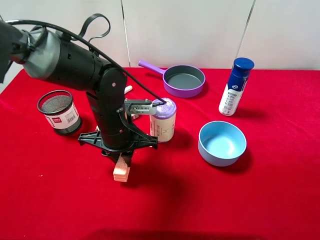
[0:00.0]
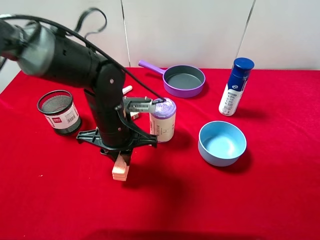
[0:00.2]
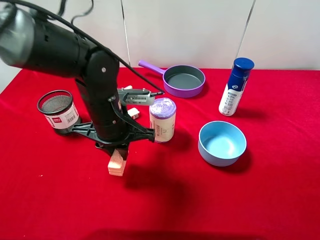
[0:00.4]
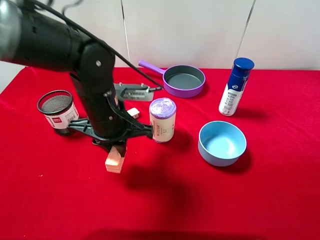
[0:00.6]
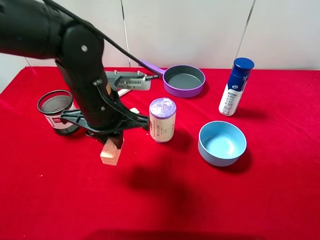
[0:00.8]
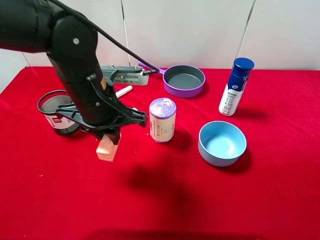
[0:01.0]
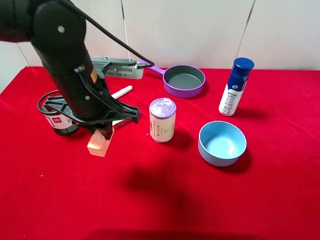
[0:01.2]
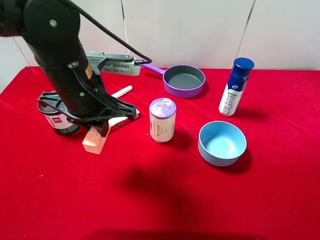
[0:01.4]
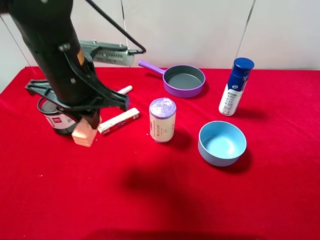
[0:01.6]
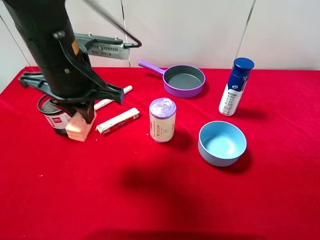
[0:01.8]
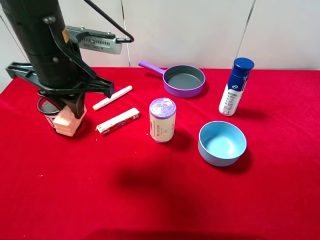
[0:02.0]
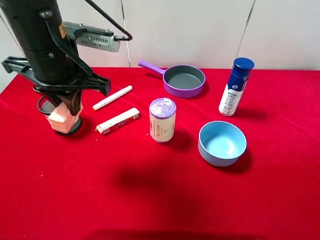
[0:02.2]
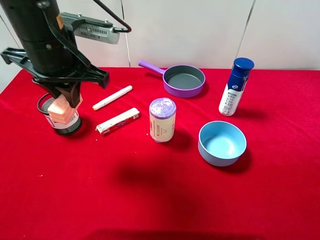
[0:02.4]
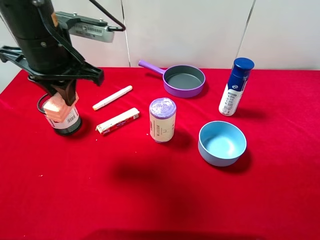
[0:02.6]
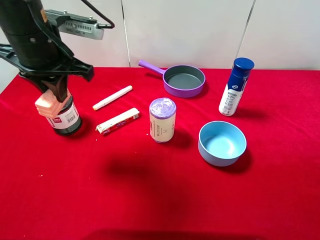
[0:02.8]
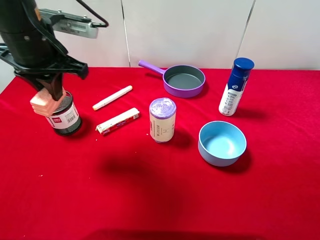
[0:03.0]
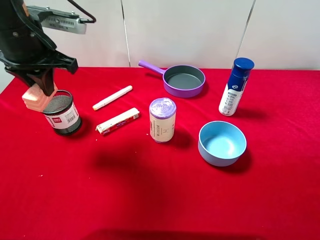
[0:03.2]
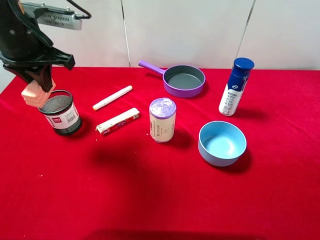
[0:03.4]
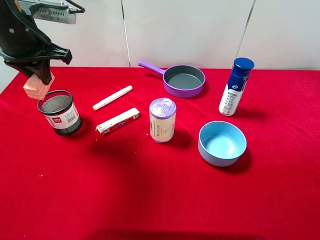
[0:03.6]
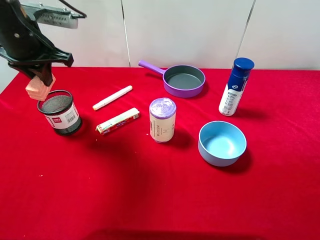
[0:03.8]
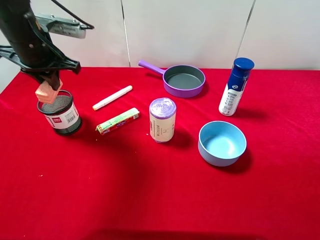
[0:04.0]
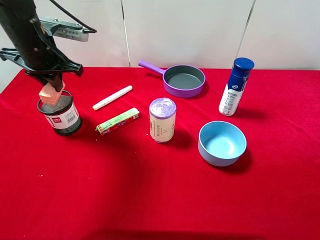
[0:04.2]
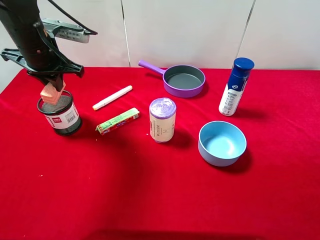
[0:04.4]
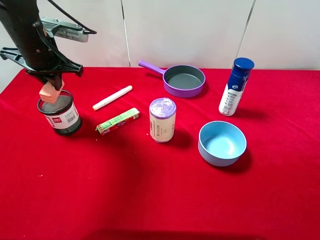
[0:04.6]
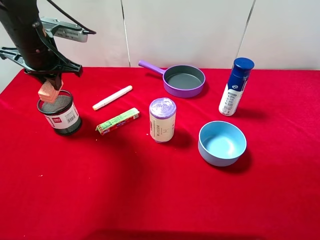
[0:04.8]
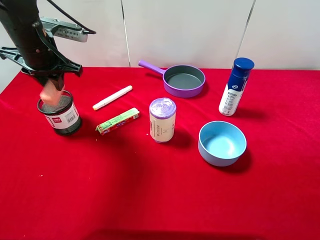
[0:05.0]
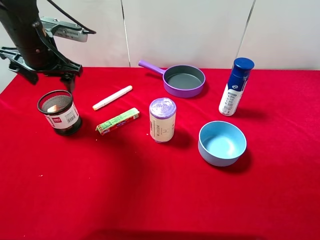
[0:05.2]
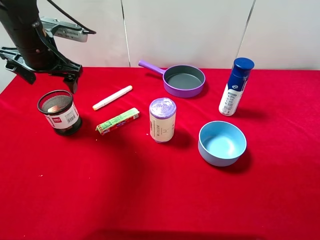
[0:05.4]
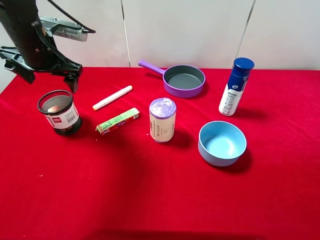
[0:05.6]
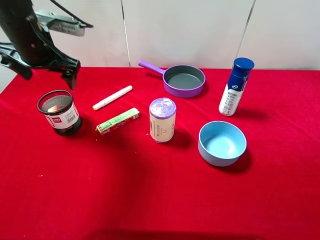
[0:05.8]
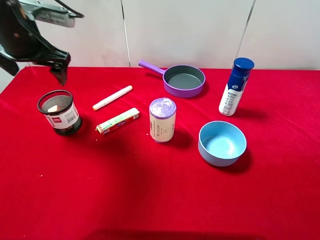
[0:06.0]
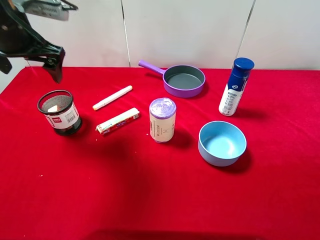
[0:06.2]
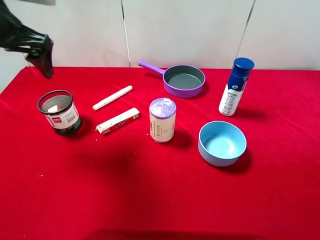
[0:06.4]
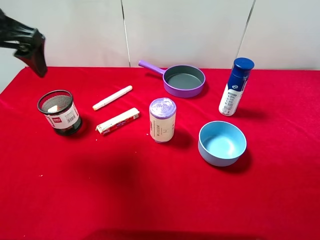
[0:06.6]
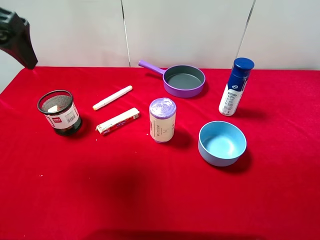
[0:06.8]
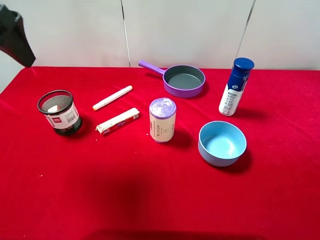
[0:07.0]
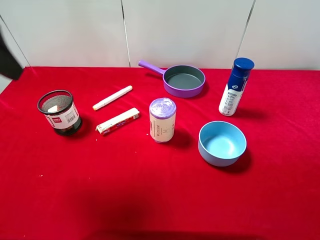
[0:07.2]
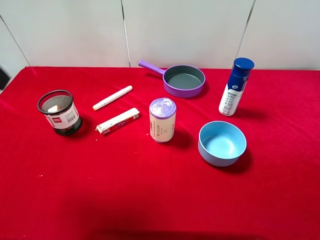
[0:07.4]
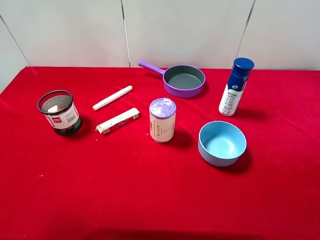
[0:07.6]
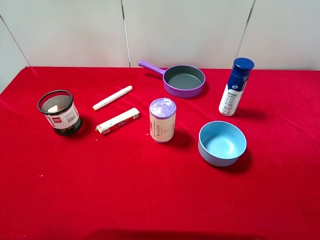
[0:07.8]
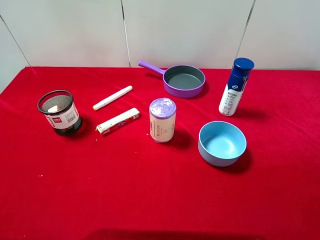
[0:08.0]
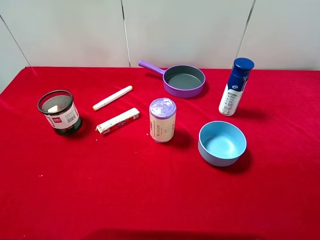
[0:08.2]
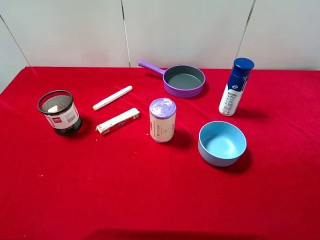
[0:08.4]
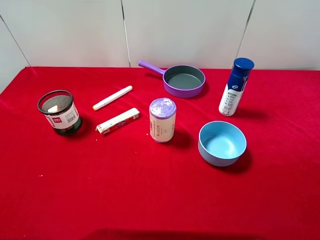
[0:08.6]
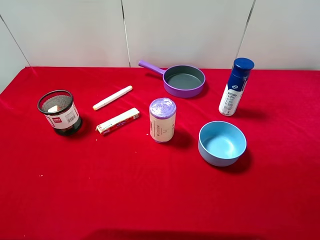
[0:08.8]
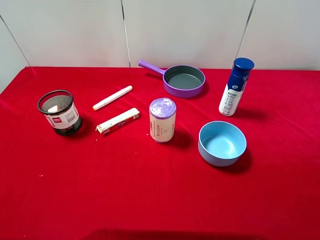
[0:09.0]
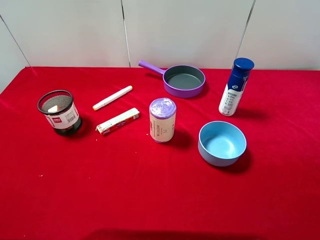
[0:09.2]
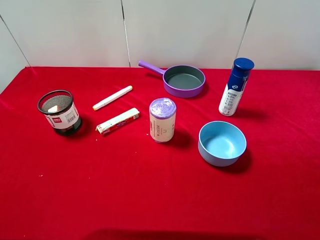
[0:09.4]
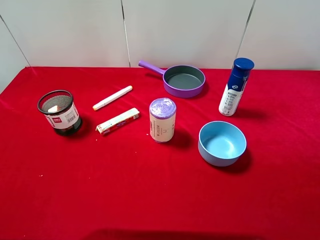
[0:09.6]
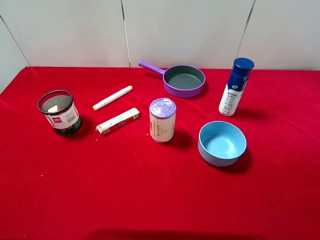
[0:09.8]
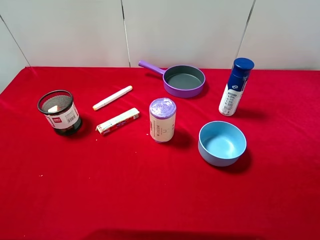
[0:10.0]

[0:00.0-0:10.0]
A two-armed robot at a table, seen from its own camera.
Task of the whole recording: pick up an item with a gripper and place it in a random container on the desktop.
0:00.0 to 0:01.4: The left gripper moves upward, roughly 10 cm.
0:01.4 to 0:02.8: The left gripper travels to the left and upward by roughly 10 cm.
0:02.8 to 0:04.2: The left gripper shifts about 10 cm forward and to the left.
0:04.2 to 0:05.8: The left gripper opens its fingers.
0:05.8 to 0:07.2: The left gripper shifts approximately 20 cm backward and upward.
0:07.2 to 0:08.6: The left gripper shifts about 20 cm backward and downward.

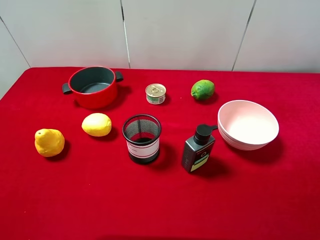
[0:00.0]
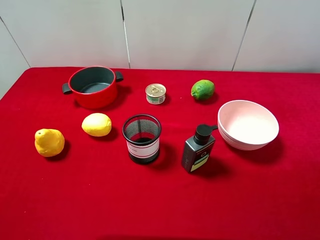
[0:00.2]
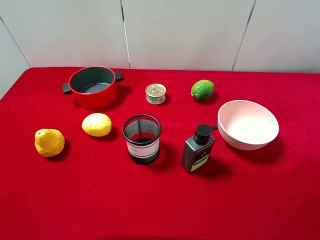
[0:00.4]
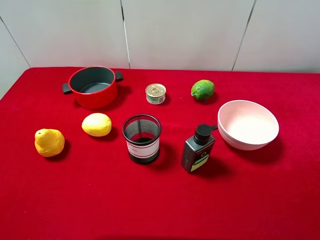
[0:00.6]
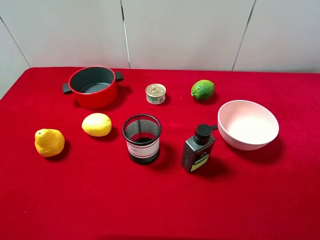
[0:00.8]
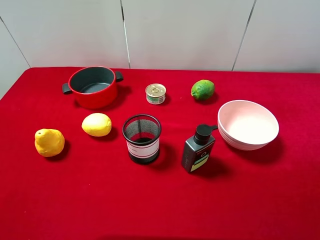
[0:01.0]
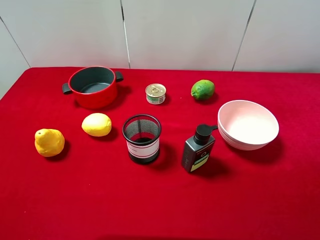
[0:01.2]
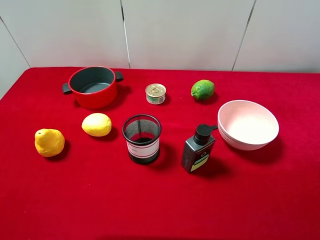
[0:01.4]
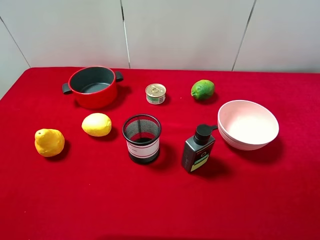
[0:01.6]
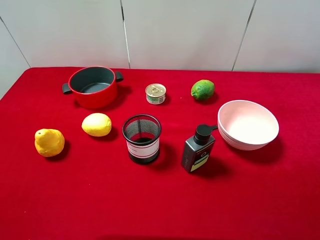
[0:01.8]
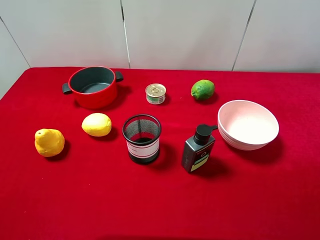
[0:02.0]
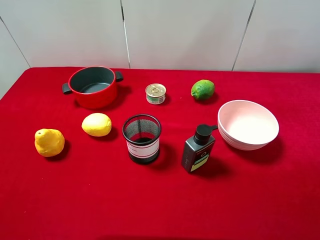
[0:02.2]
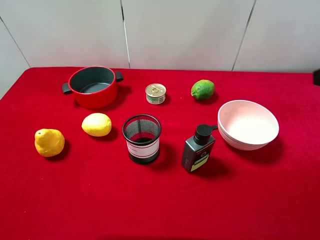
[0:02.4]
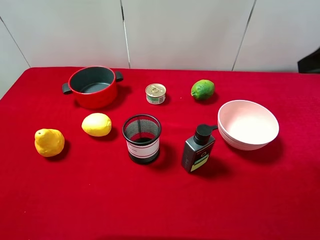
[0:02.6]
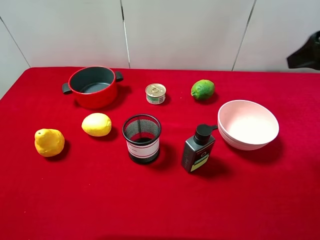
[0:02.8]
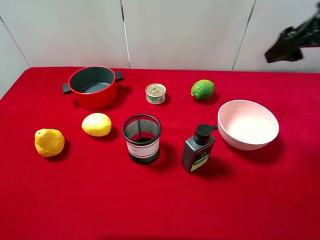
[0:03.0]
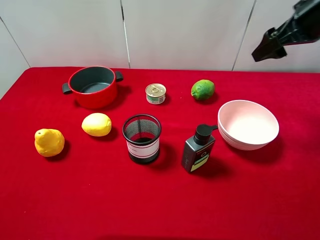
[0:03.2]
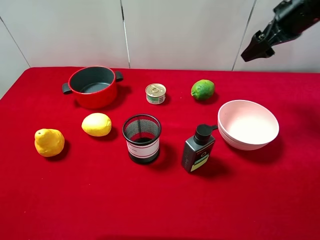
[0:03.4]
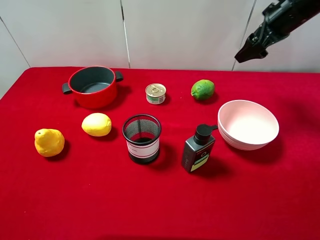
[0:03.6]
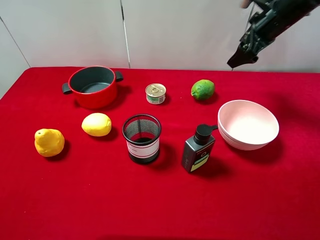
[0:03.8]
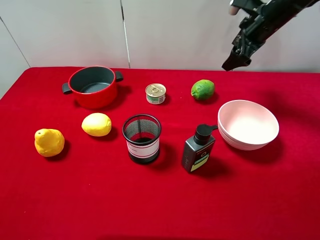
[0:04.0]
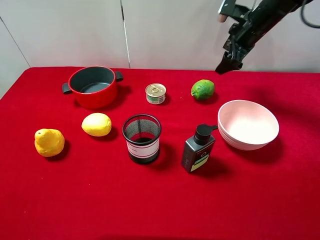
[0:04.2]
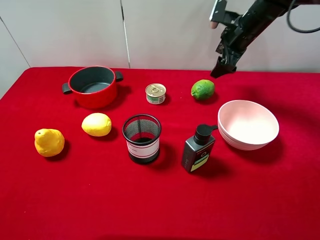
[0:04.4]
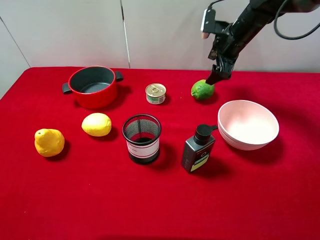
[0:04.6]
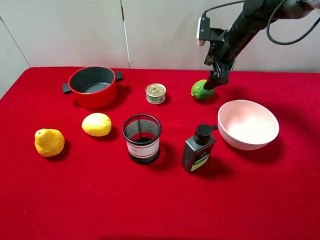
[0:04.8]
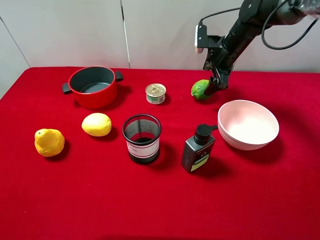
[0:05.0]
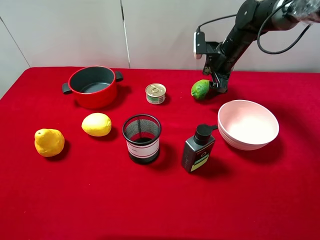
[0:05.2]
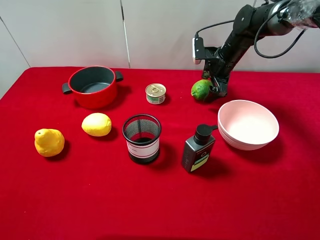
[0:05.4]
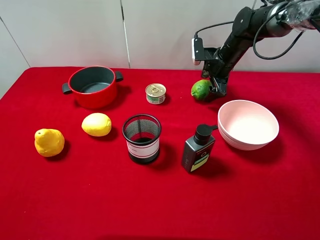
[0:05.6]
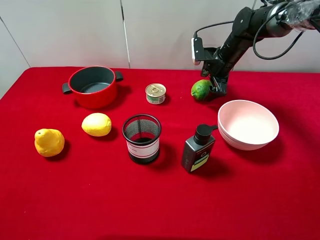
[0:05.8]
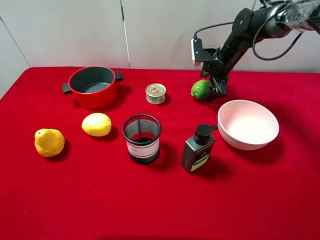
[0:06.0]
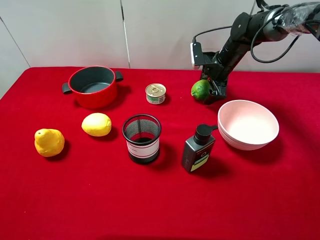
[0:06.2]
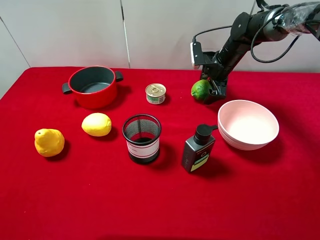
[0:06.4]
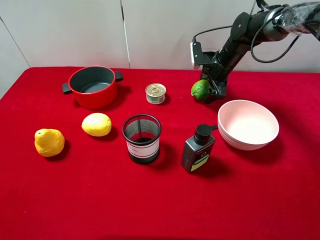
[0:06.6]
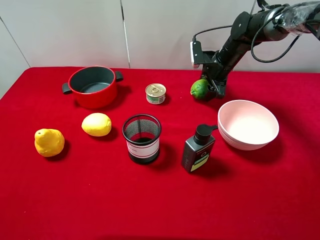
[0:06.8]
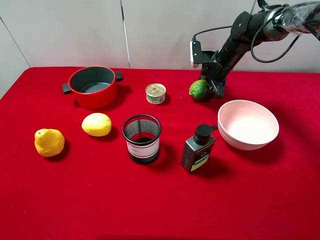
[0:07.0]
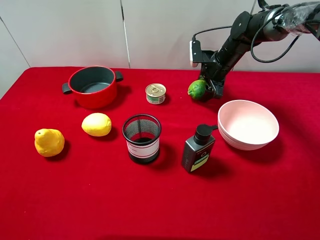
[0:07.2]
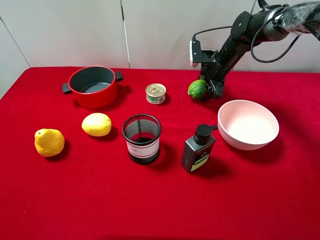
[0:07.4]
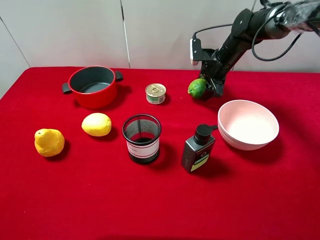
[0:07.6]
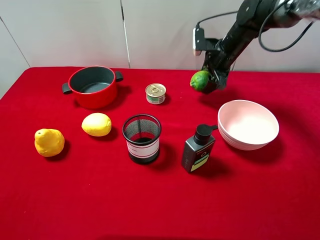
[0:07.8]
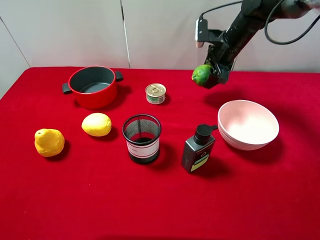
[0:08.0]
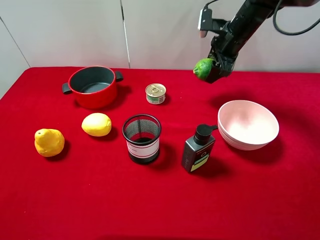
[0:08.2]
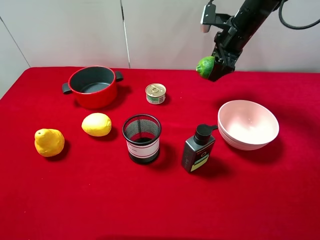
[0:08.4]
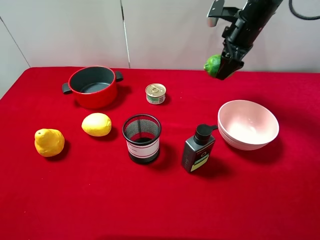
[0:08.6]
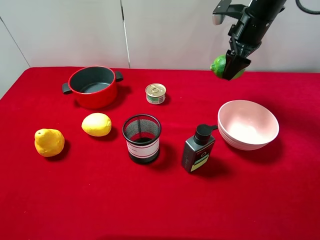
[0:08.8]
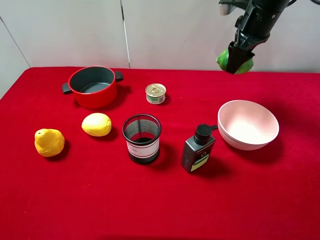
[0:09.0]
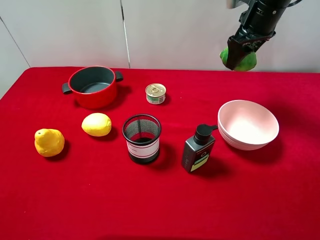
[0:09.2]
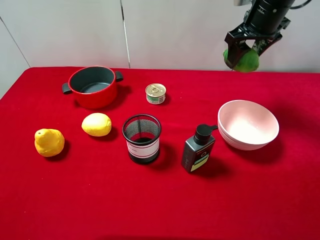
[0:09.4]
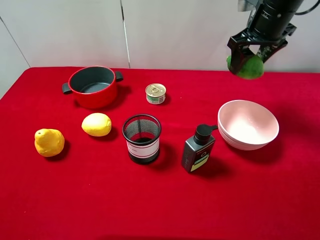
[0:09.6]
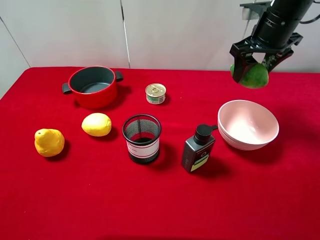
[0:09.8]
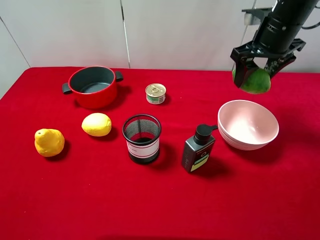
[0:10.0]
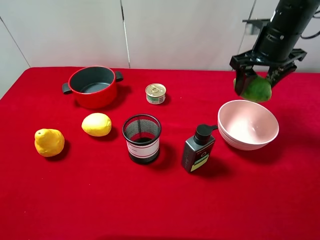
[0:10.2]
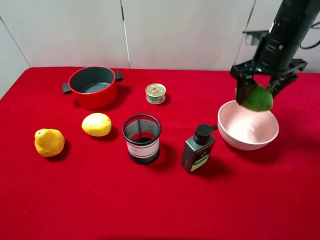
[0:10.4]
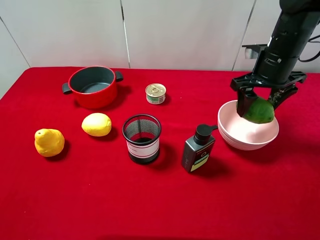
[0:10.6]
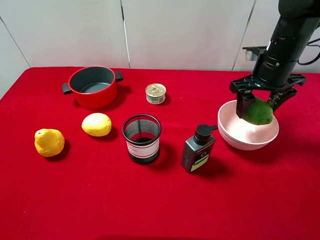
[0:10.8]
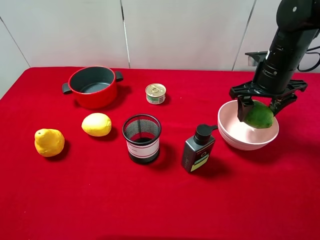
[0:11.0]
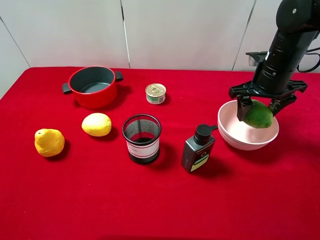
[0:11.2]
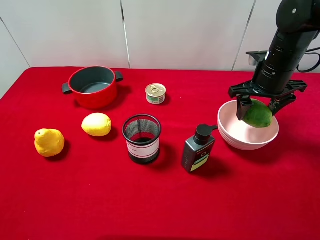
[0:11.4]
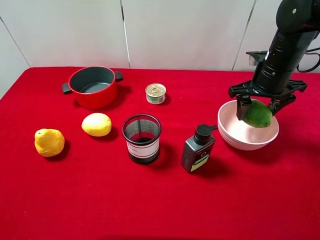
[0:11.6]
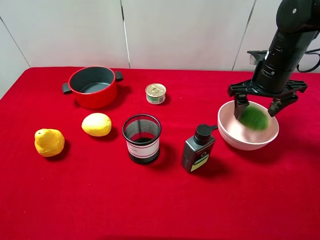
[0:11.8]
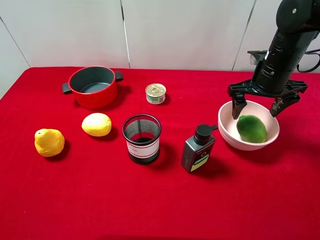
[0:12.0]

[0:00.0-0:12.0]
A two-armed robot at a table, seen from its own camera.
Task of the whole recording: pick up an item with a gripper and place it in a random container on the desktop.
0:00.0 to 0:01.6: Both grippers stay about where they are.
0:01.6 to 0:03.0: The right gripper moves forward, about 30 cm.
0:03.0 to 0:04.4: The right gripper travels forward, downward and to the left by about 20 cm.
0:04.4 to 0:06.0: The right gripper is displaced downward by some 10 cm.
0:06.0 to 0:07.6: The right gripper closes its fingers.
0:07.6 to 0:09.0: The right gripper heads upward, covering some 15 cm.
0:09.0 to 0:10.4: The right gripper heads backward, covering roughly 5 cm.
0:10.4 to 0:12.0: The right gripper opens up.
